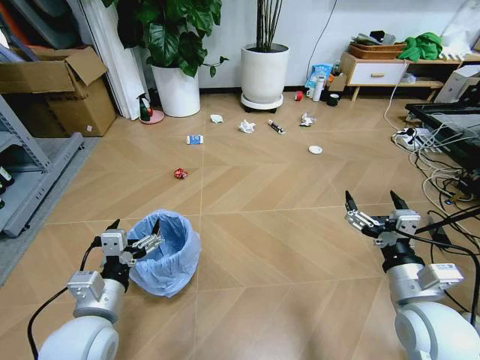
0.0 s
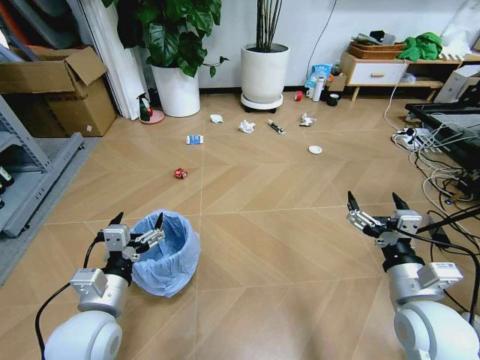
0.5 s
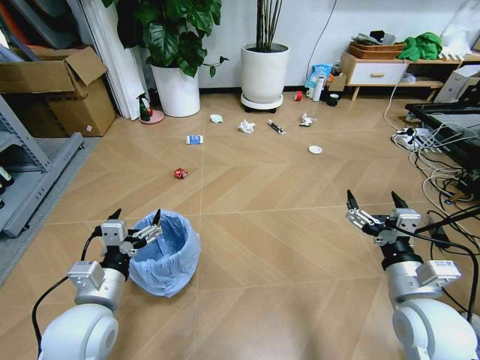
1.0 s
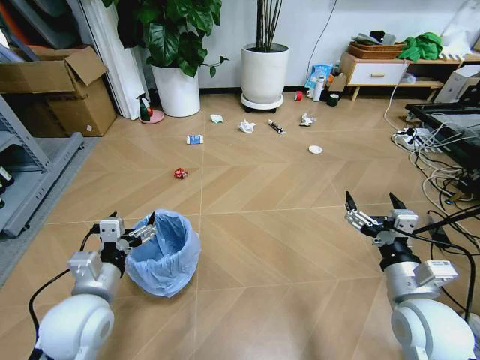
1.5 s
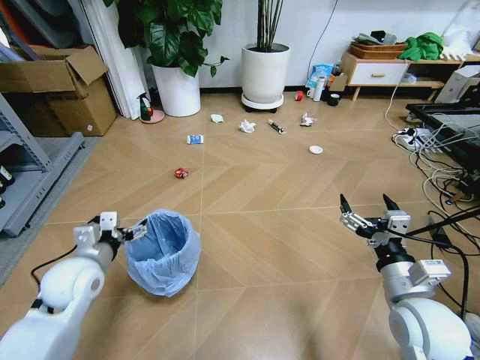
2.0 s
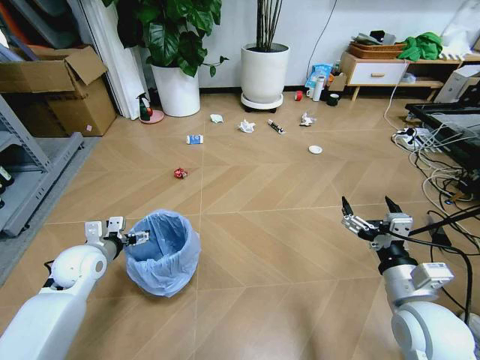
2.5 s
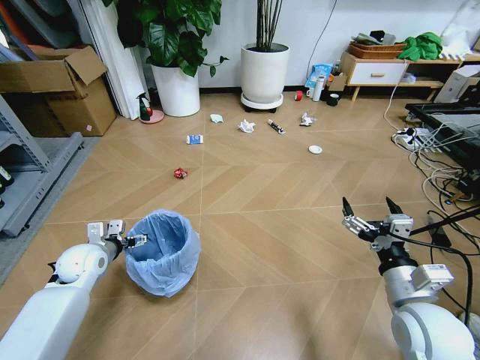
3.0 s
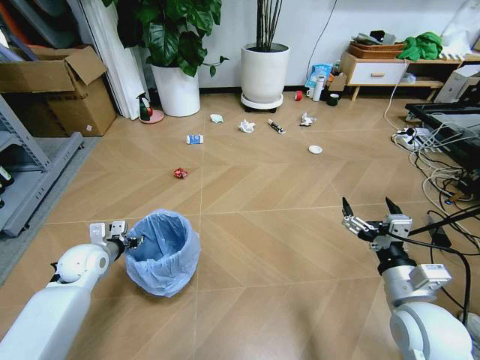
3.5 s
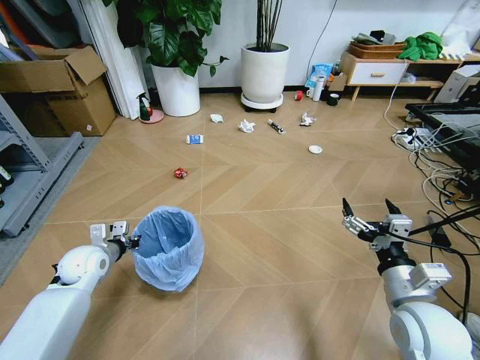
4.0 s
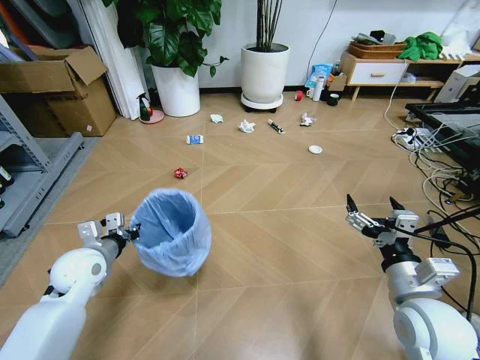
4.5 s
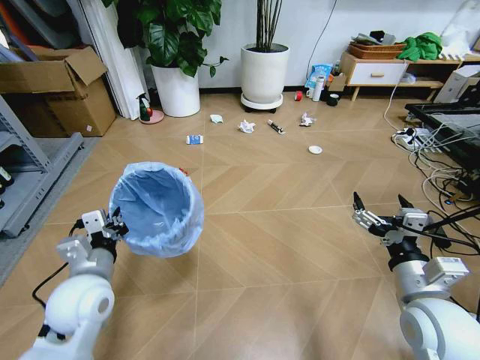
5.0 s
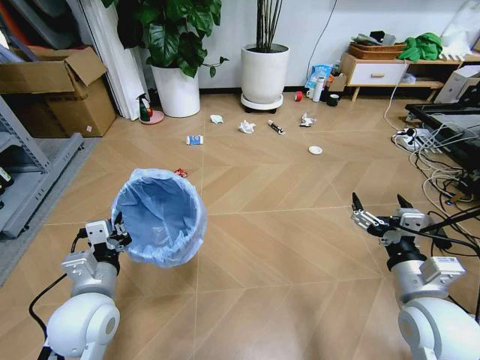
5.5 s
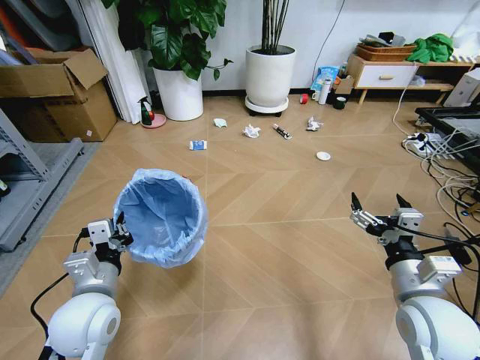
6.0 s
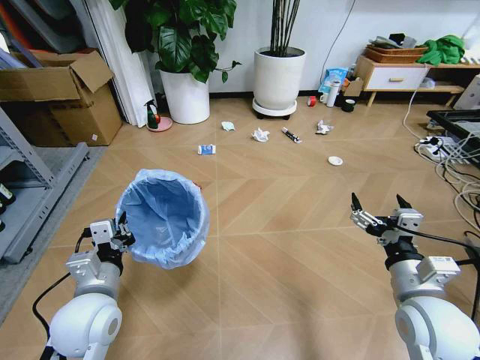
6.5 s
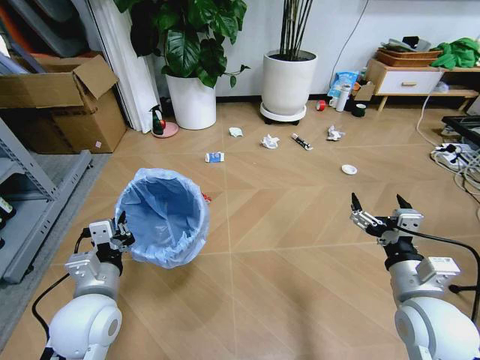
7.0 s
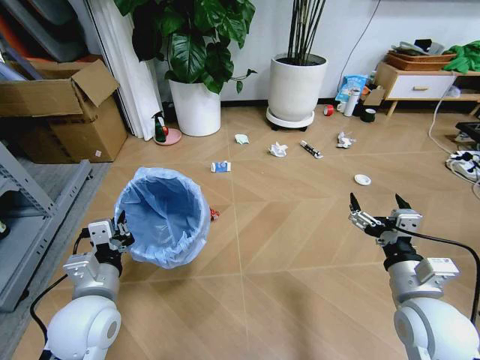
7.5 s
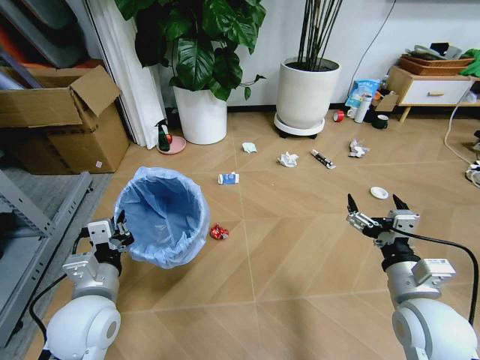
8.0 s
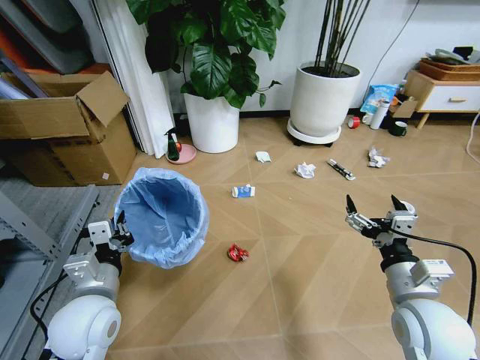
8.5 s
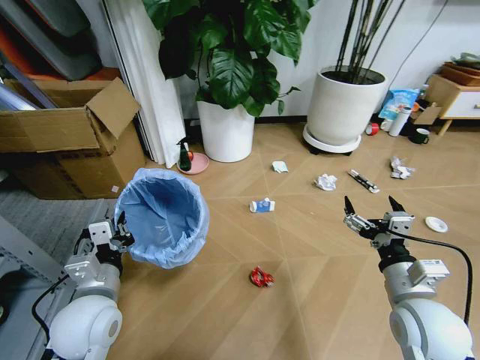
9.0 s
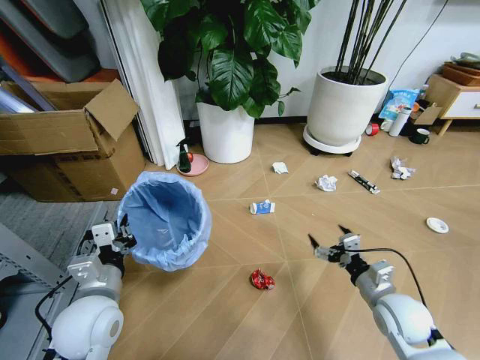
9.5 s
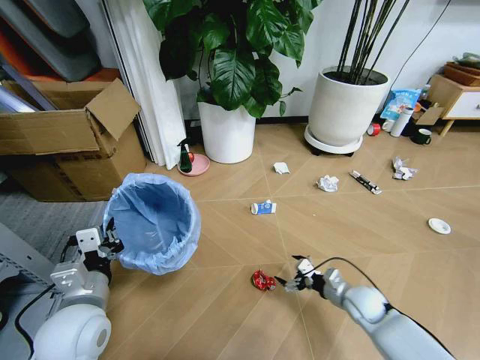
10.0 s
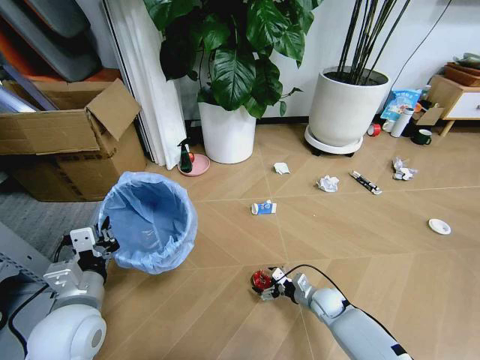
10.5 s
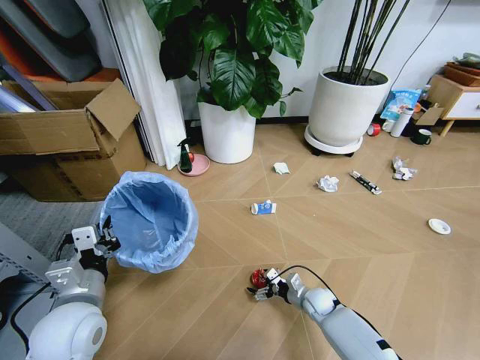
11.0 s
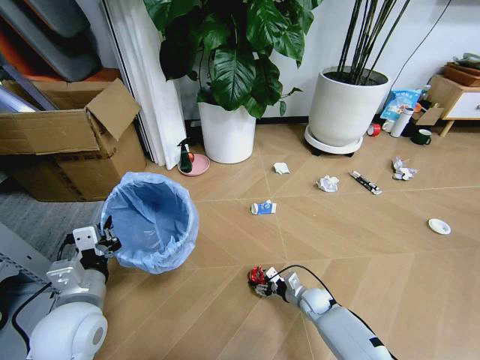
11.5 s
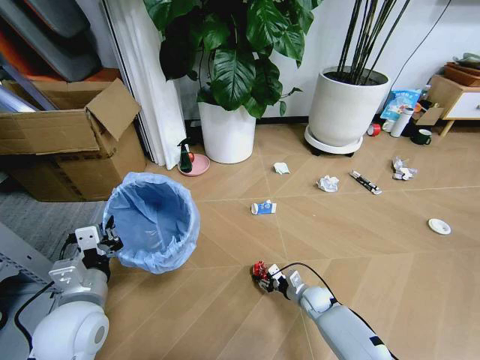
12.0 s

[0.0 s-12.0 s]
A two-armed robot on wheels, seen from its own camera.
Task of the whole recording: Pick up the trash bin and place the garbage on the floor into it.
2.0 to 4.0 s: The left gripper shifts roughly 10 cm downward and forward, and closes its fingers.
4.0 to 6.0 s: The left gripper heads backward, to the right and upward, covering approximately 20 cm.
8.0 to 10.0 s: The right gripper shifts approximately 25 cm downward and forward.
10.0 to 12.0 s: The right gripper travels downward and to the left by approximately 15 cm, and closes its fingers.

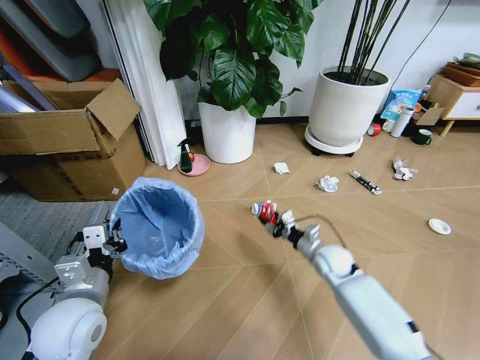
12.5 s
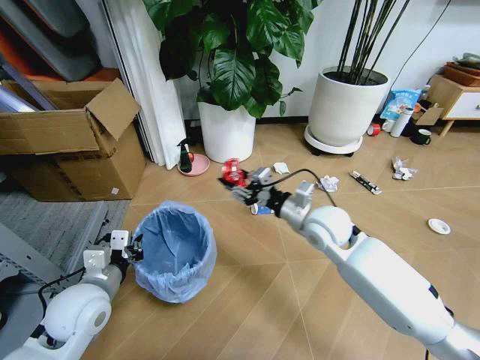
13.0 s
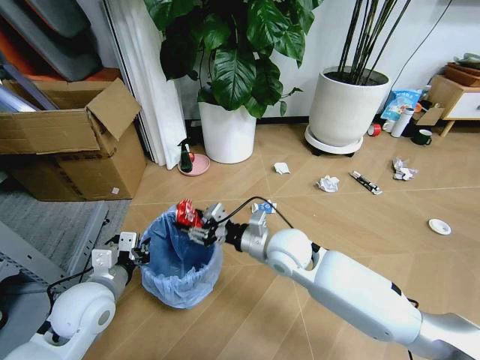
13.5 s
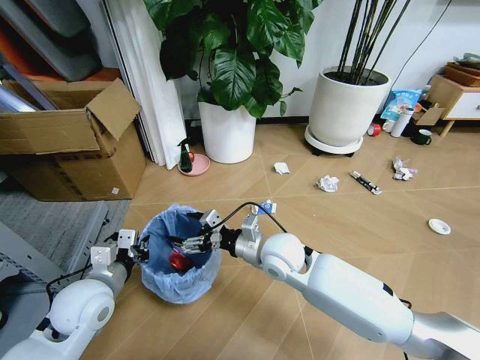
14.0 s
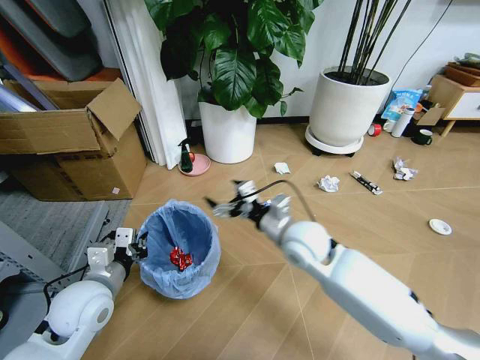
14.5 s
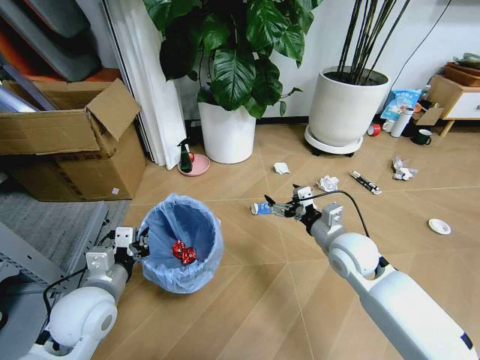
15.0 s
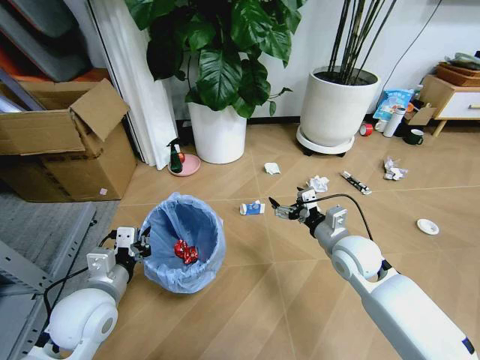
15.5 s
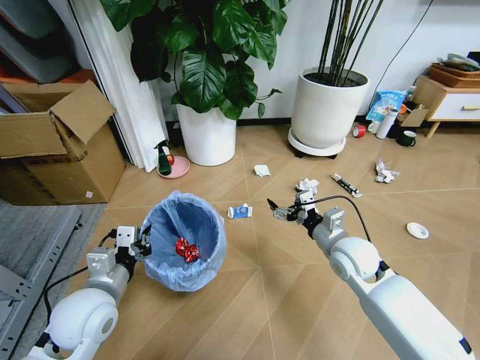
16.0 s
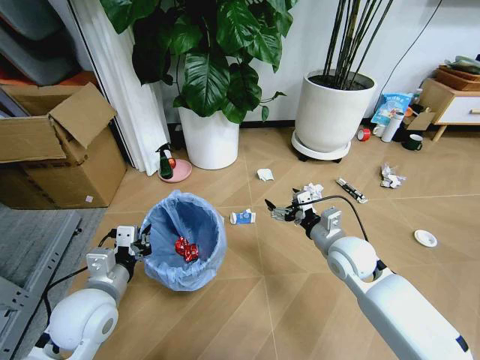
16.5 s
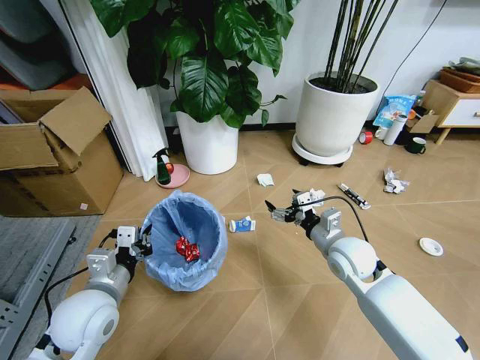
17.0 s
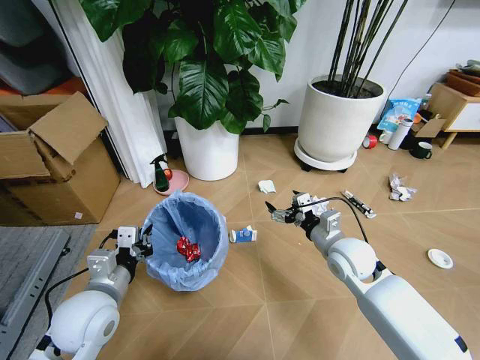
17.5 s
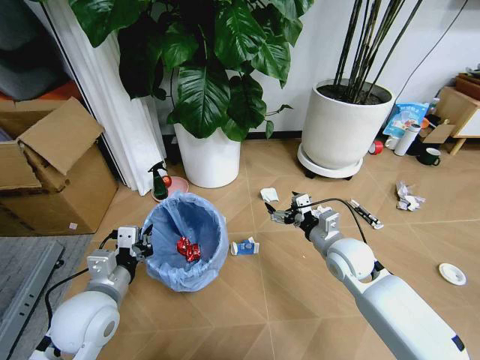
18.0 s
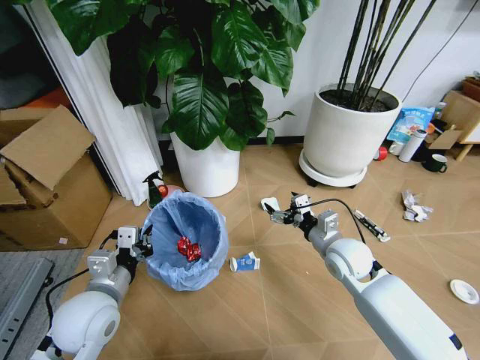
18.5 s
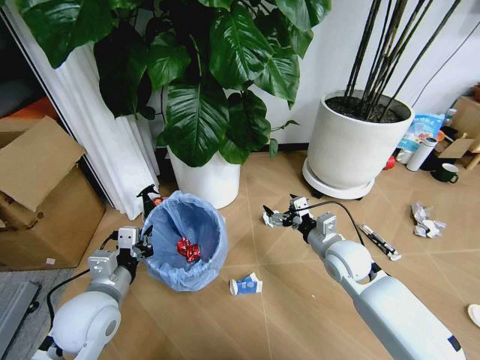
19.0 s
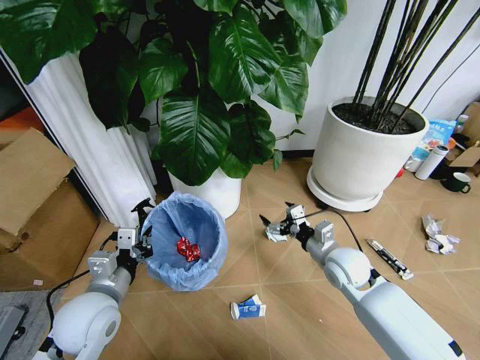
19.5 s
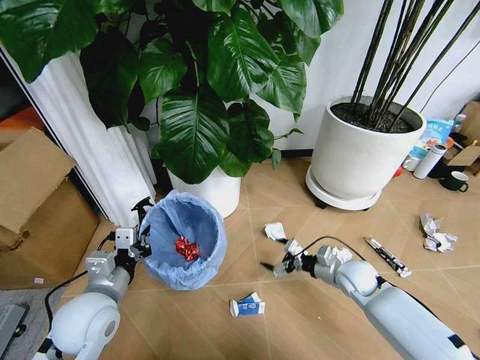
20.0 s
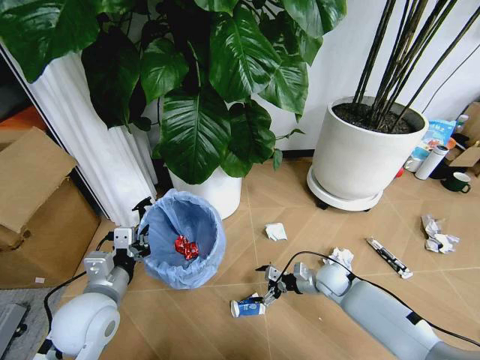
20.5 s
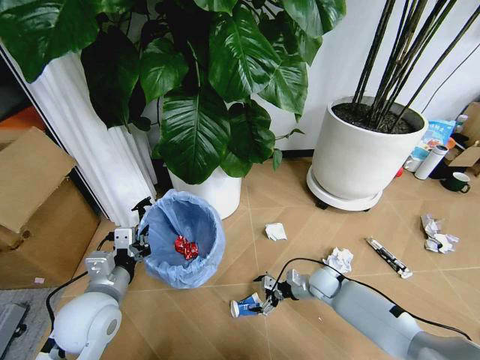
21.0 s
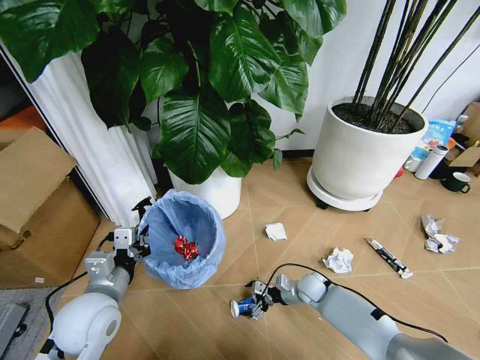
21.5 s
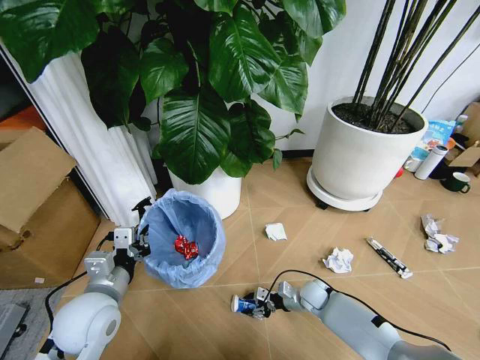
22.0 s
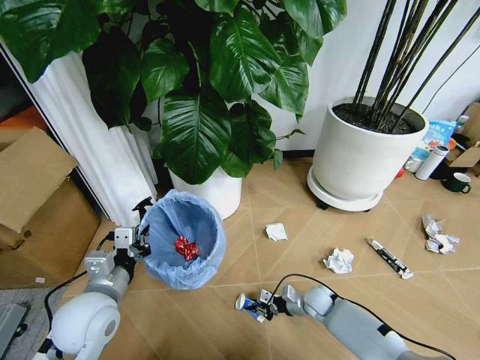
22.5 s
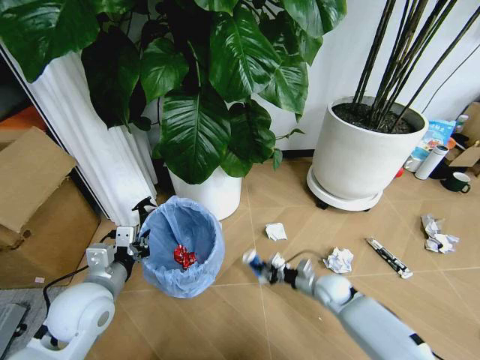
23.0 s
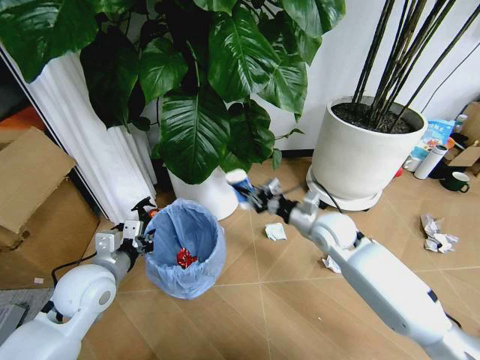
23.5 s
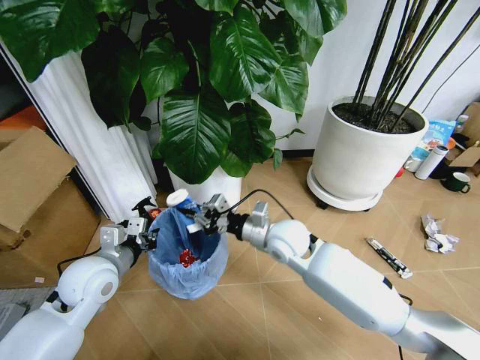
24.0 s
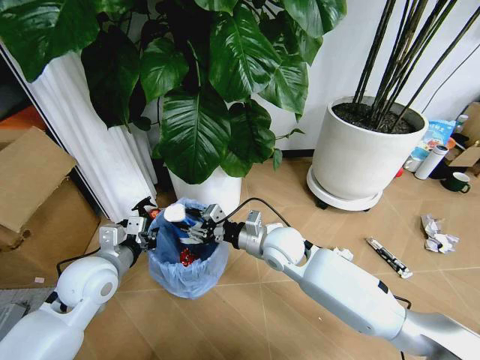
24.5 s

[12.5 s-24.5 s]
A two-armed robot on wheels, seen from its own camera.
Task of the whole recording: Pick up the trash bin and place the garbage on the floor into it.
12.5 to 14.5 s: The right gripper moves upward and to the left, approximately 20 cm, and opens.
14.5 to 16.5 s: The right gripper travels to the right by approximately 10 cm.
18.5 to 20.5 s: The right gripper moves downward, approximately 15 cm.
20.5 to 22.5 s: The right gripper is displaced downward by roughly 10 cm, and closes its fingers.
22.5 to 24.5 s: The right gripper shifts about 30 cm upward and to the left, and opens. Meanwhile the left gripper moves forward, some 5 cm.

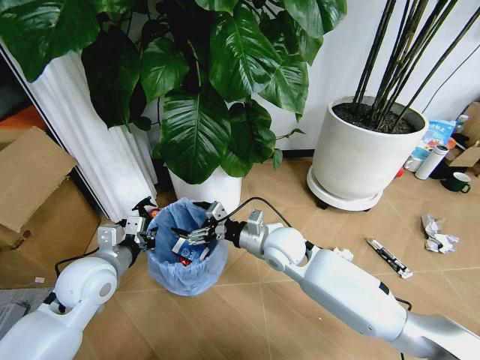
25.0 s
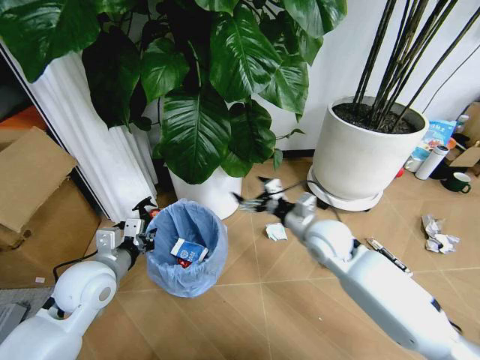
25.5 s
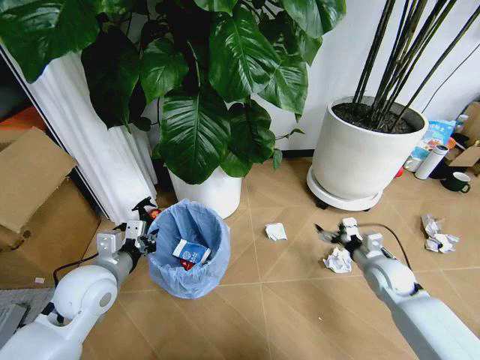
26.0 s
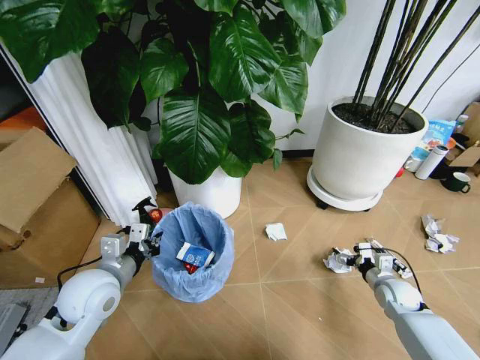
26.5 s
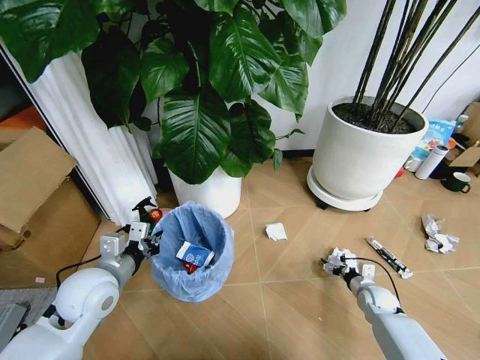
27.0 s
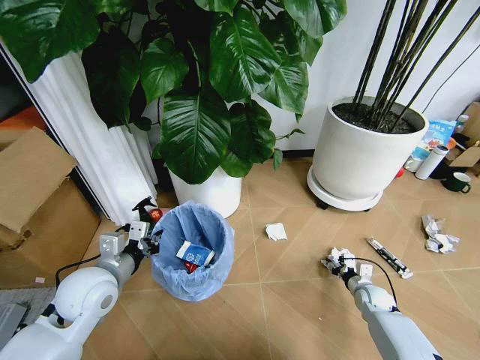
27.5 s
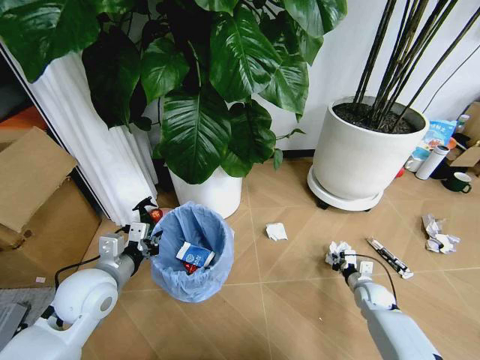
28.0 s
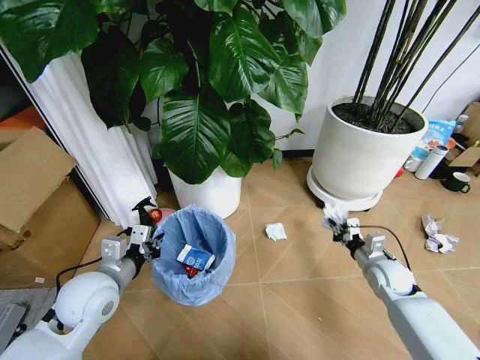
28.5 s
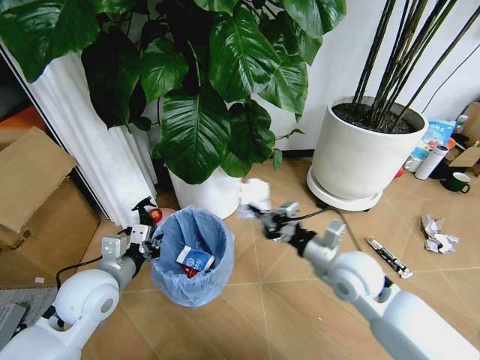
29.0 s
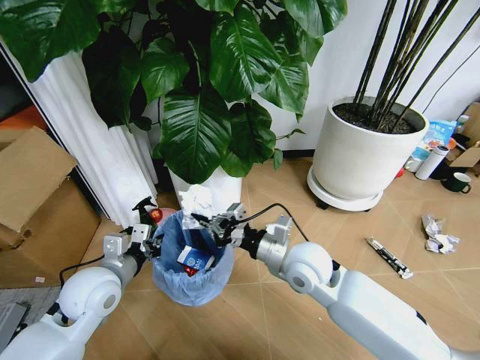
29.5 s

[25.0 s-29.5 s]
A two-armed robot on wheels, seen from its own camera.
Task of the whole recording: Pick up the trash bin and place the garbage on the floor into it.
25.0 to 27.0 s: The right gripper travels to the right and downward by roughly 40 cm.
27.0 to 29.5 s: The right gripper travels to the left and upward by about 40 cm, and closes.
